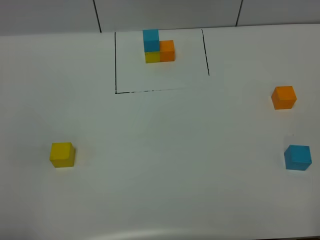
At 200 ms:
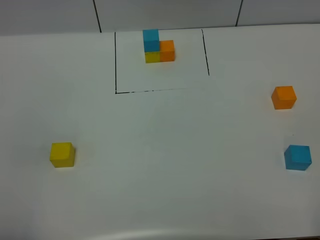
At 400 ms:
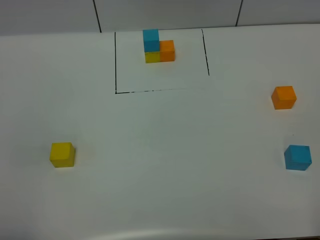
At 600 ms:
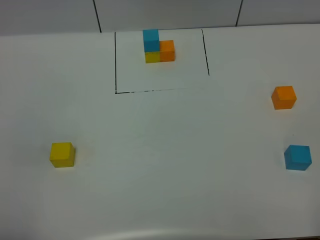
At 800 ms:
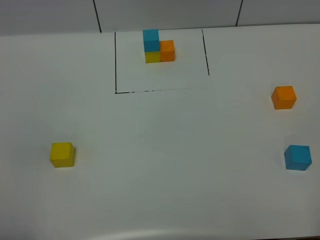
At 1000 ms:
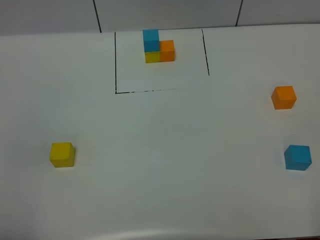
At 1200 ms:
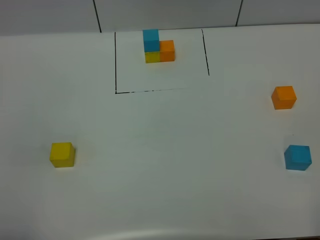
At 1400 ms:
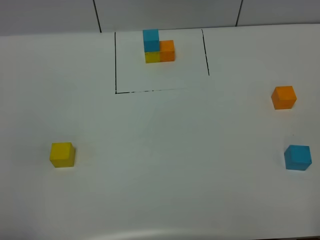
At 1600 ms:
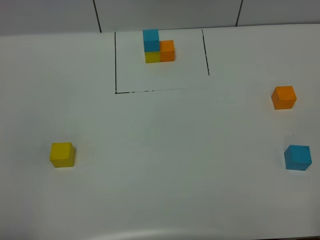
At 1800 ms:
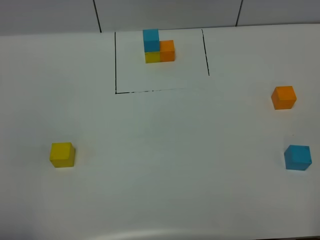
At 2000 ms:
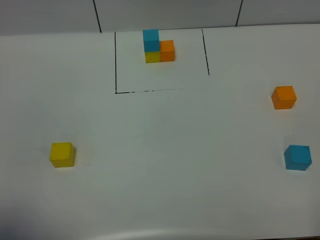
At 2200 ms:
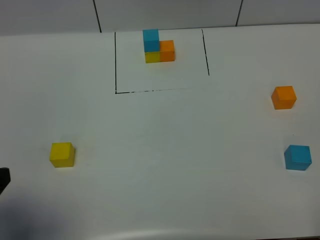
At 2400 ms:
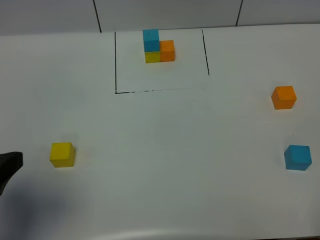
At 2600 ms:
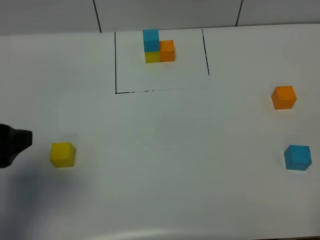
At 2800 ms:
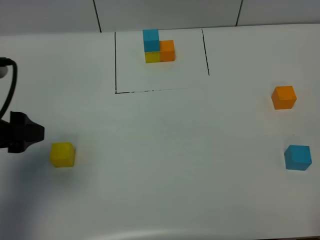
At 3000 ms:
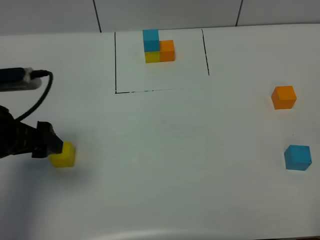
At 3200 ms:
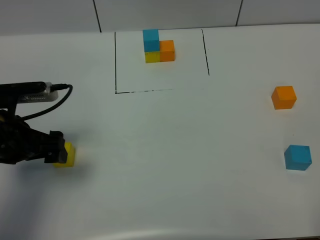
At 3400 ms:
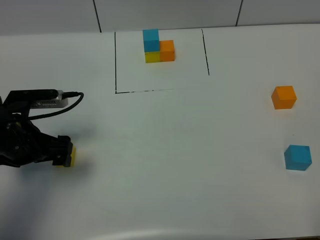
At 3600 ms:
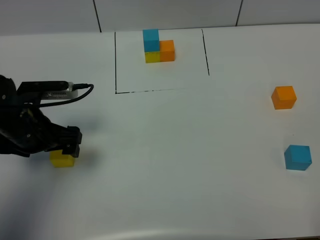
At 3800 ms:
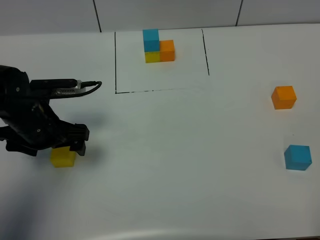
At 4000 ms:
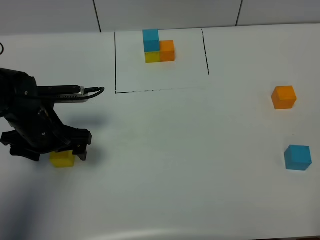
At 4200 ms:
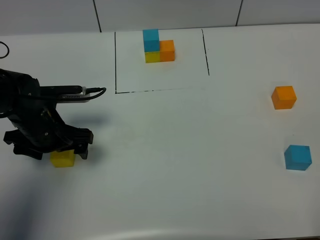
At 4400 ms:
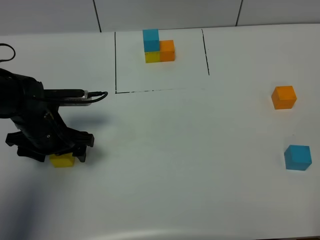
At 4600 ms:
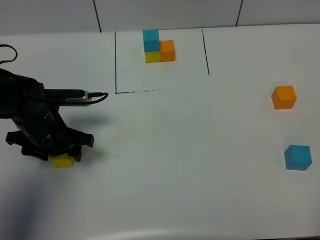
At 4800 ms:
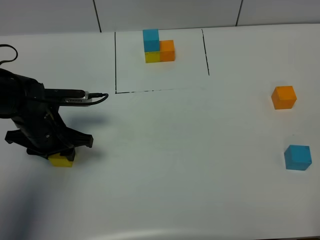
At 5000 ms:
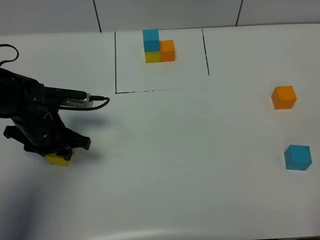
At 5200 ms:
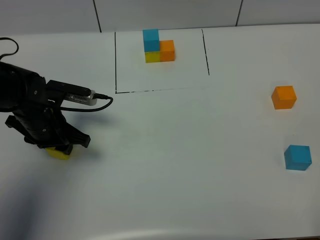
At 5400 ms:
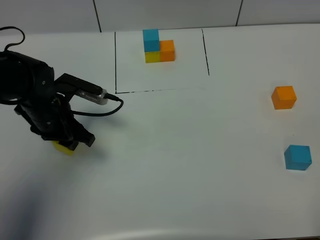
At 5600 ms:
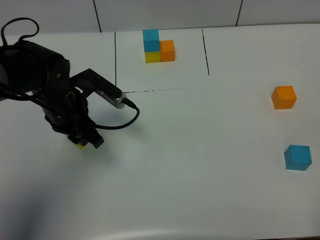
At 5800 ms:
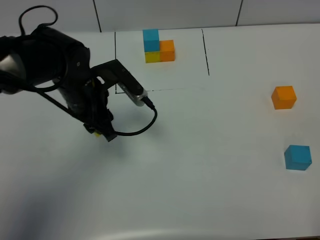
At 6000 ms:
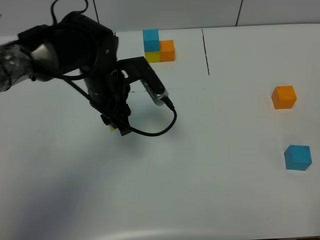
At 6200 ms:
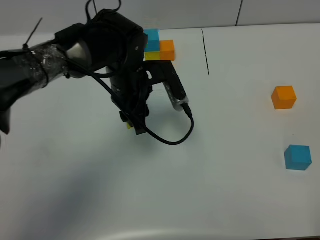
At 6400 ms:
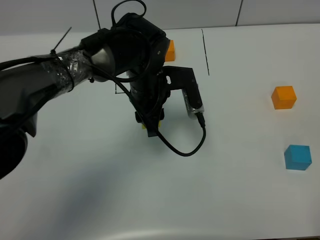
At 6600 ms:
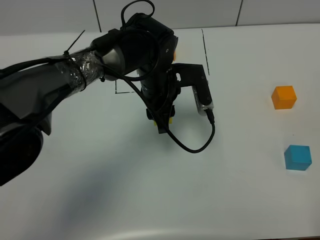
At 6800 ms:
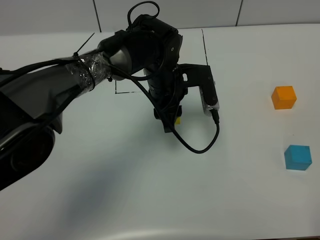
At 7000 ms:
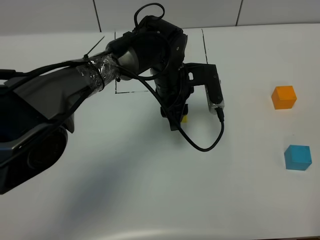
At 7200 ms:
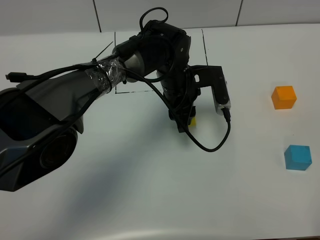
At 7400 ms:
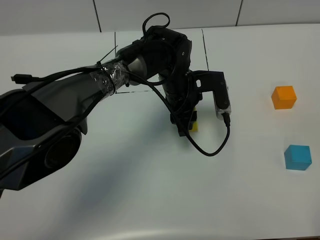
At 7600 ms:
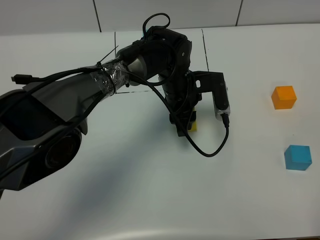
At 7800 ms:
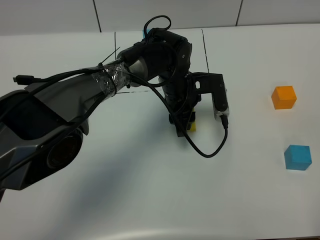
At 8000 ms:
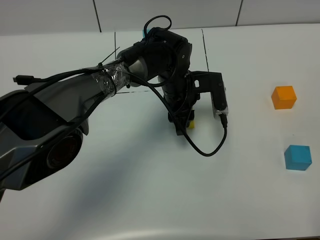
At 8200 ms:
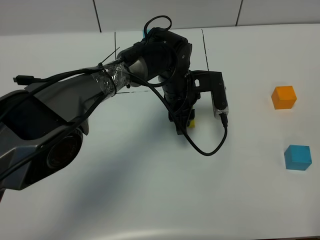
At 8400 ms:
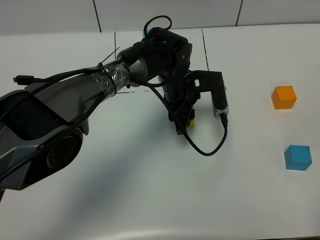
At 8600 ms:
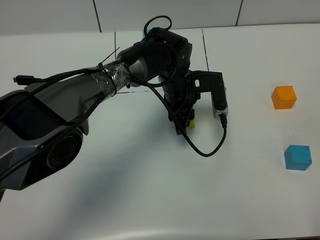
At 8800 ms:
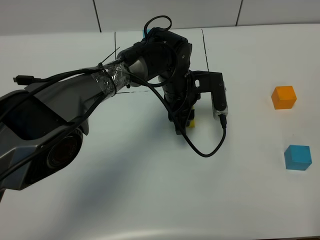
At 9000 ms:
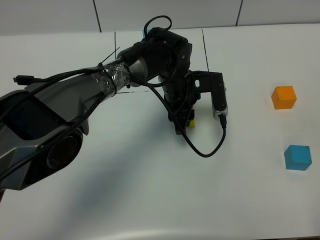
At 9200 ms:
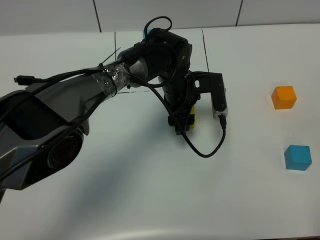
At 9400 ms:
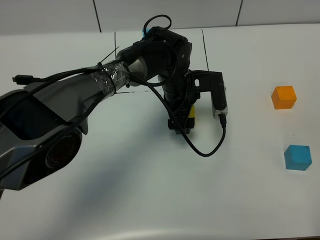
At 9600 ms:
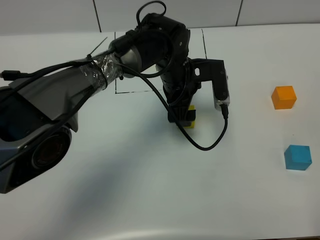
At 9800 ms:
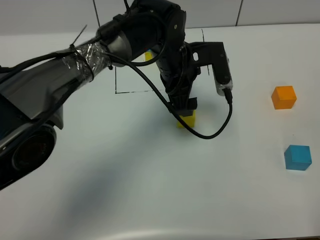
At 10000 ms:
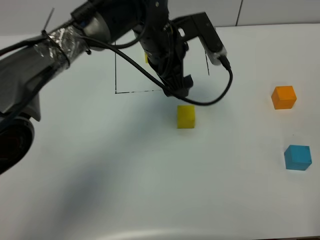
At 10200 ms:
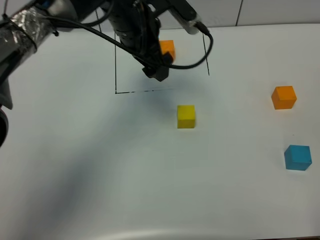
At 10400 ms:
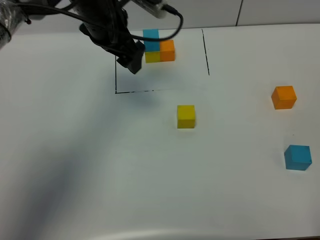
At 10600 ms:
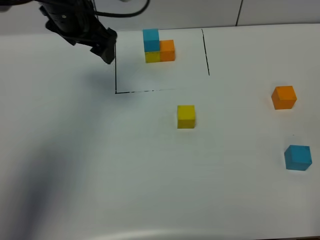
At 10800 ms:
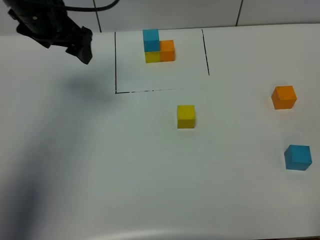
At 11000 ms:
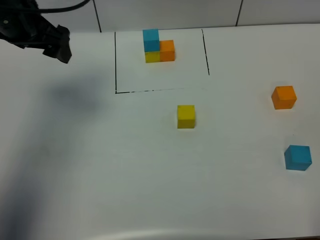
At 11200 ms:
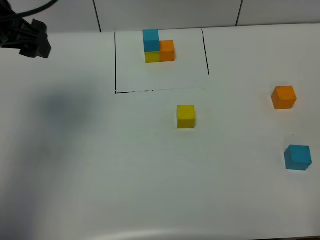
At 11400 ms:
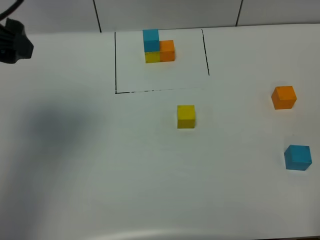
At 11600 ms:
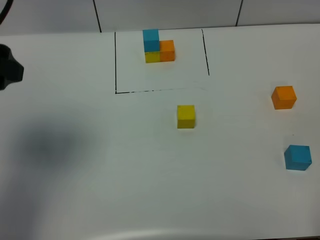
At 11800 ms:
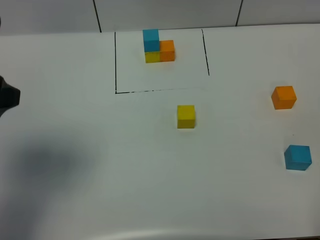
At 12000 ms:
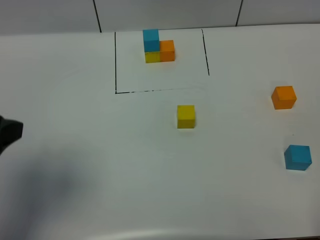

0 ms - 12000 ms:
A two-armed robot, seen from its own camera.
Task of the whole recording: According to the building block template in front, assemble the scattered blocks together.
Step, 2200 ms - 9600 ms: Put the yellow cube in the center of the table.
0 ms - 1600 ms: Neither gripper changes place.
1600 ms - 3000 ms: The left gripper heads forward, covering some 25 cm, and opens its fingers.
3000 ms - 4400 ms: The left gripper moves downward and forward, roughly 15 cm.
4400 ms - 6000 ms: The left gripper is displaced to the right, upward and forward by roughly 15 cm, and closes.
6000 ms - 7600 ms: The left gripper goes about 15 cm to the right and downward.
7600 ms - 9000 ms: Both grippers stay about where they are.
9000 ms - 10400 ms: The left gripper heads upward and to the left, covering approximately 20 cm, and opens.
10400 ms - 12000 ms: The left gripper moves backward and to the left, about 30 cm.

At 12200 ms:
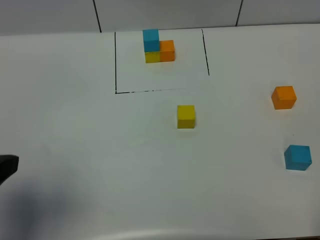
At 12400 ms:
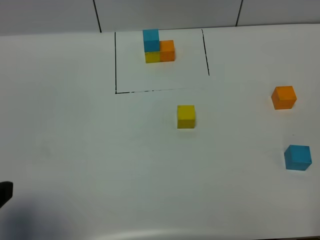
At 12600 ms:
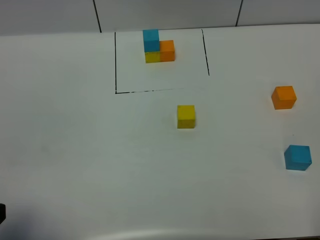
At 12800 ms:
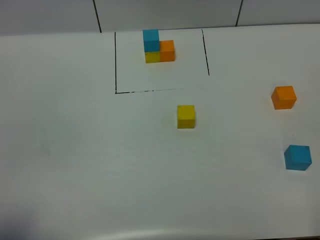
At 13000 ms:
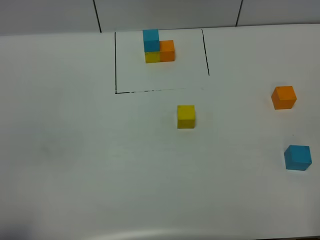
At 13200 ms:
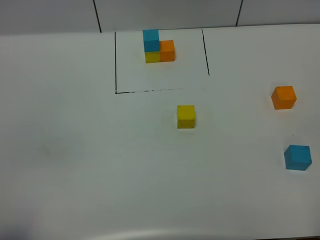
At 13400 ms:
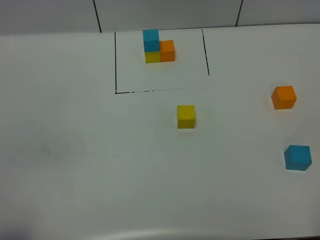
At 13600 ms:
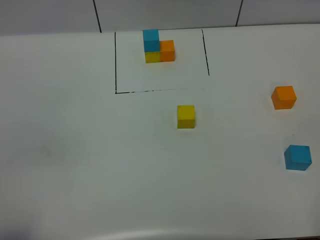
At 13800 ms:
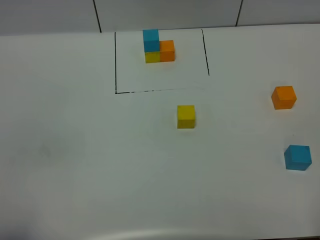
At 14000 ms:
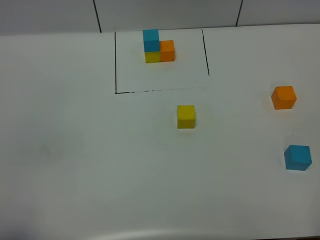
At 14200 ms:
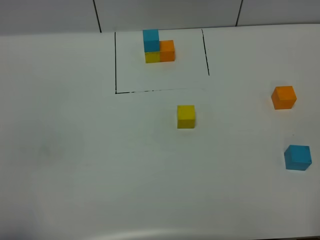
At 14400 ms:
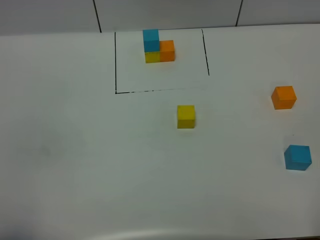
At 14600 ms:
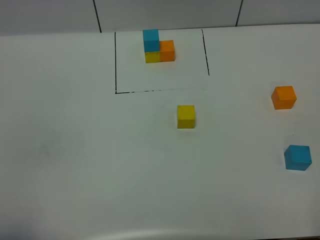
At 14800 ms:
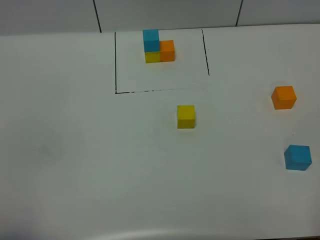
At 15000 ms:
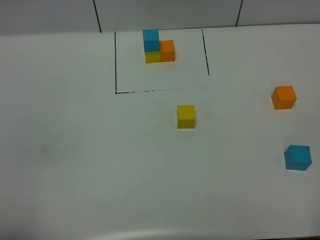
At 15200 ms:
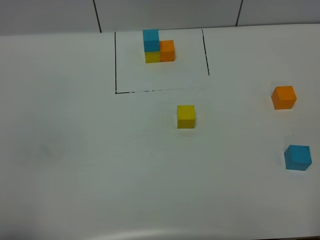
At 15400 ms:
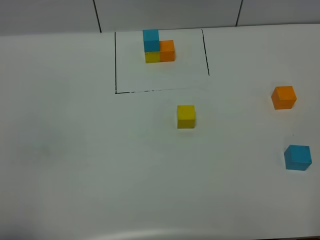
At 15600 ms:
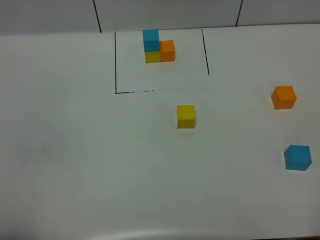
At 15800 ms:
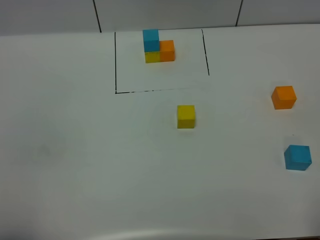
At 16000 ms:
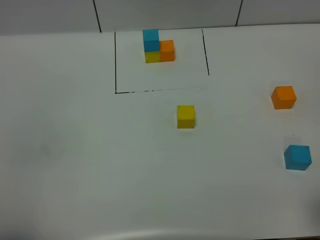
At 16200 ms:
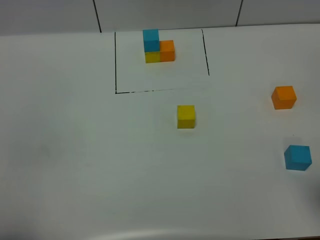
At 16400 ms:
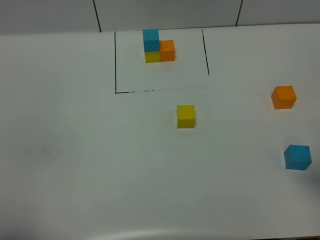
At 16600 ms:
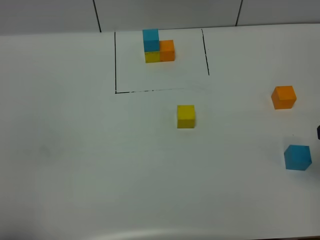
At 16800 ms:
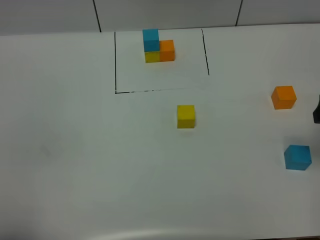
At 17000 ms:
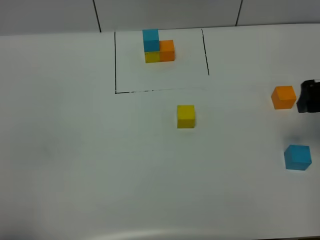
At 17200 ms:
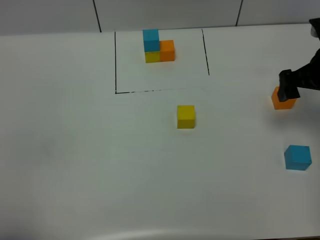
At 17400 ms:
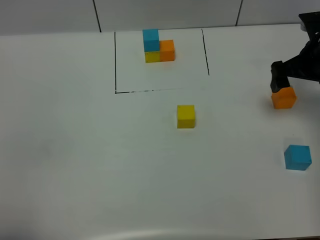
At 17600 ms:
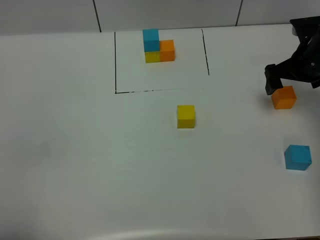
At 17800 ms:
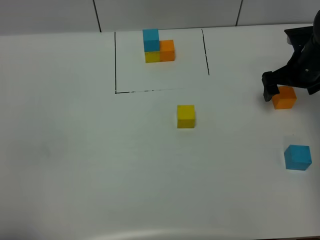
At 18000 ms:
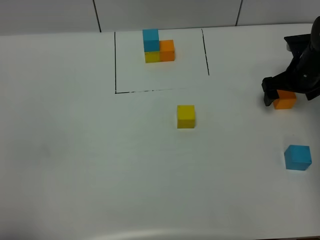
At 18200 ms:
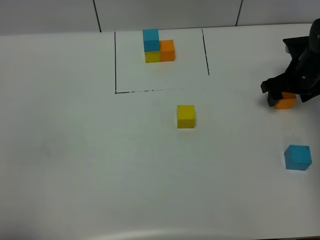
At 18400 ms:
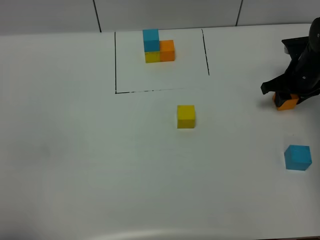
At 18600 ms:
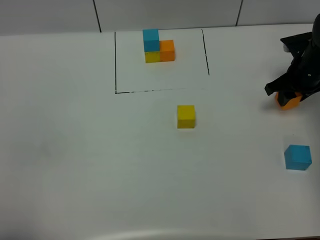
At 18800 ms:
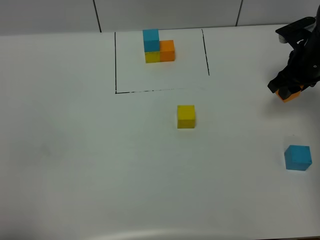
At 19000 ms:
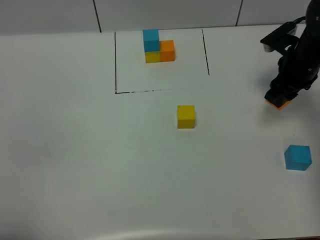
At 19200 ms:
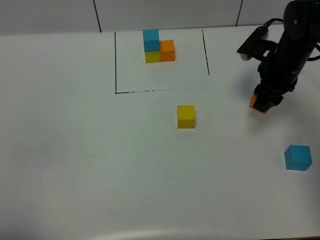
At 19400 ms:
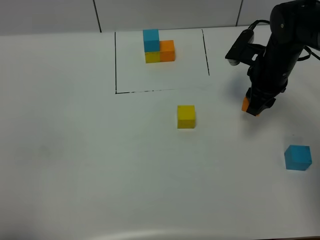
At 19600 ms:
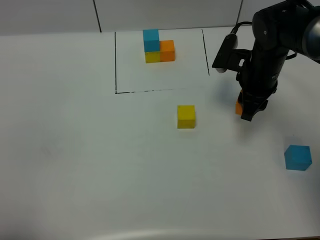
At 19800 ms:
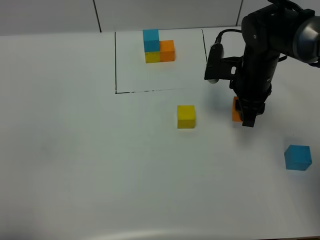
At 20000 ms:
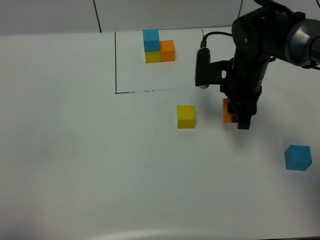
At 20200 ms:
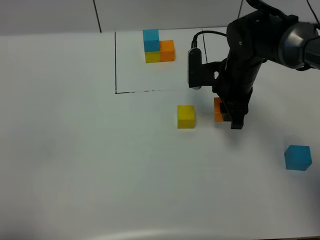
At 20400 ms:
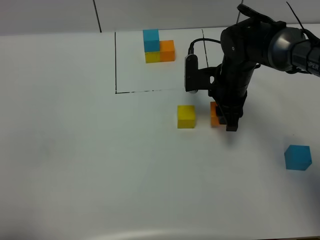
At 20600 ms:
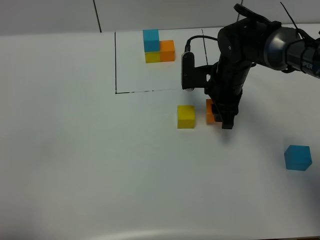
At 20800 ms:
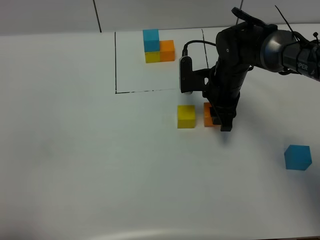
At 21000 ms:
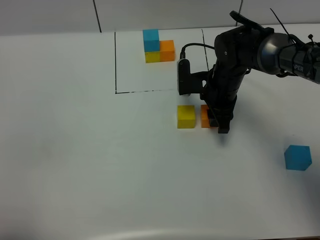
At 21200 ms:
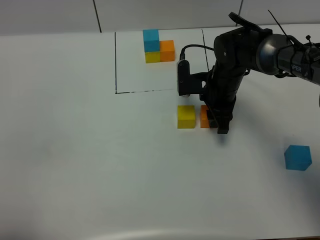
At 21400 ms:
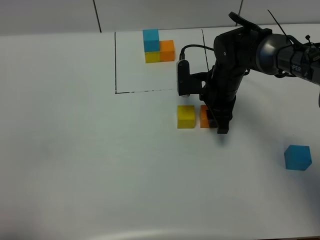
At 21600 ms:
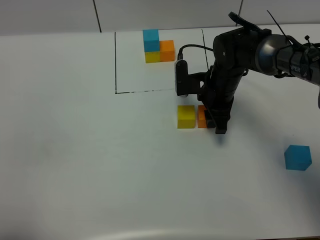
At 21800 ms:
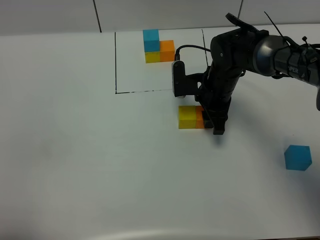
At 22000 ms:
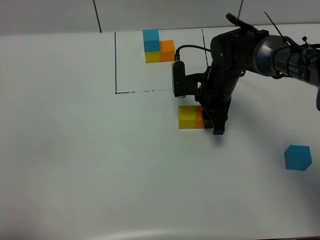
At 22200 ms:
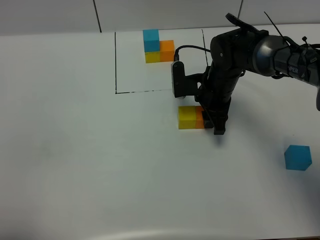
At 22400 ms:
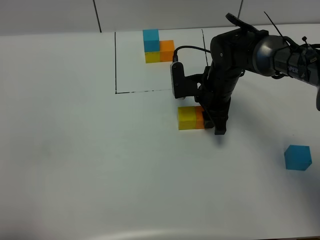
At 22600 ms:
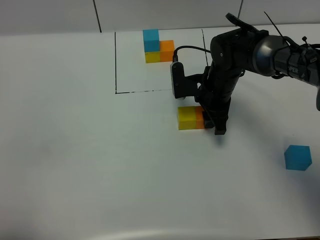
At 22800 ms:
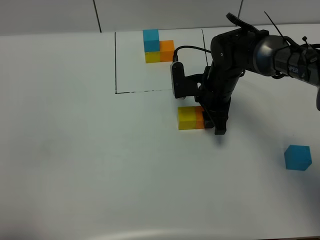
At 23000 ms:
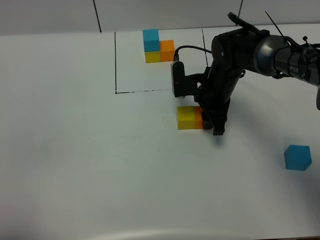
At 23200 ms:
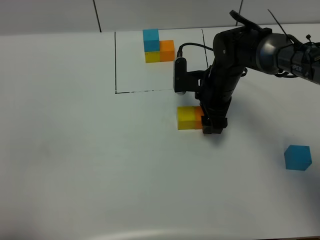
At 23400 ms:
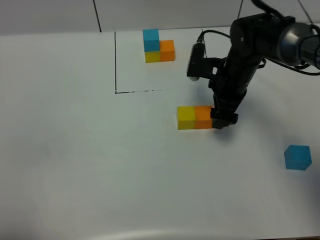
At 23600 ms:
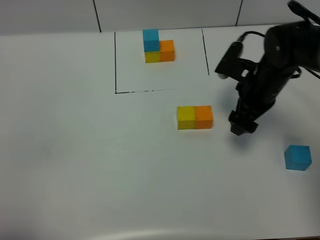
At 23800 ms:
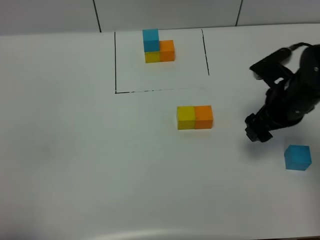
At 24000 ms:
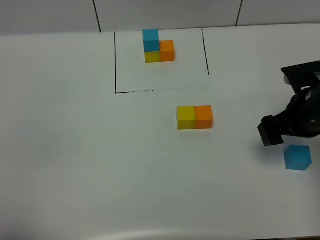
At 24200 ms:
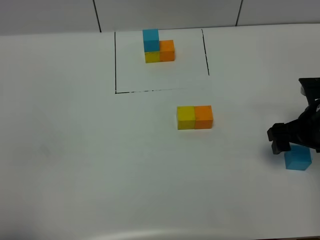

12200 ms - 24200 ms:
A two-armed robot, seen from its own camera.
Task of the whole recording: According to the building block template in front, assemble the scattered blocks together.
Step, 12200 ms - 23200 ms: Put the orange cube on the right of the yellow cube.
12200 ms - 13800 ms: The left gripper heads backward, covering some 10 cm.
16600 ms - 18200 ms: The right gripper is displaced forward and downward by some 25 cm, and closes up.
18200 ms - 19800 ms: The right gripper goes some 15 cm to the left, backward and upward, and closes up.
19800 ms - 21200 ms: The right gripper is displaced downward by about 5 cm.
21200 ms - 22600 ms: Both grippers stay put.
22600 ms - 24200 ms: The right gripper heads to the right and backward, covering roughly 20 cm, and opens its fingers.
